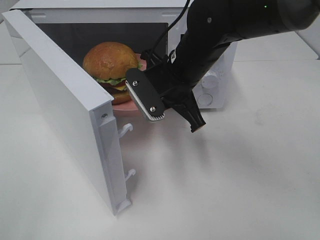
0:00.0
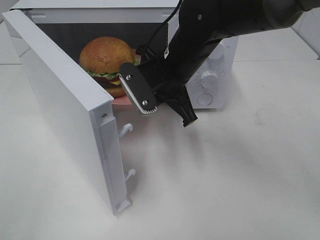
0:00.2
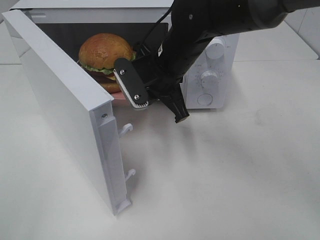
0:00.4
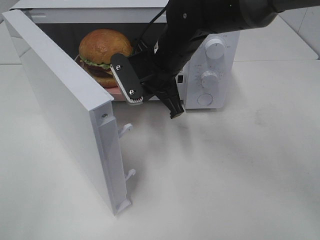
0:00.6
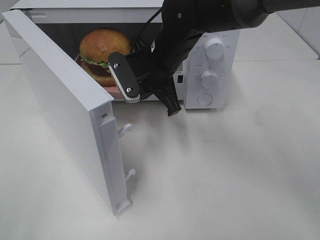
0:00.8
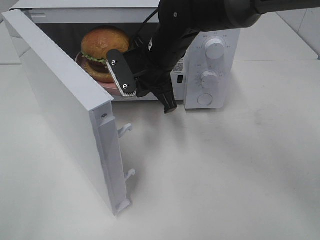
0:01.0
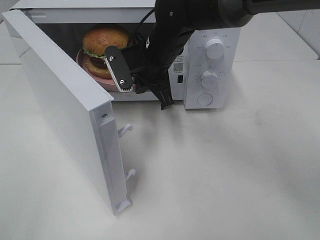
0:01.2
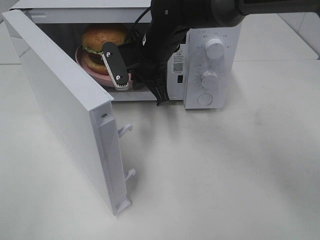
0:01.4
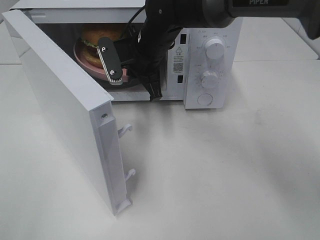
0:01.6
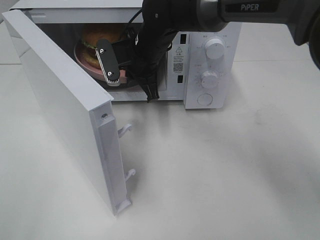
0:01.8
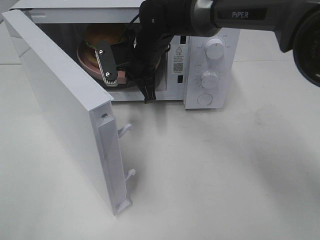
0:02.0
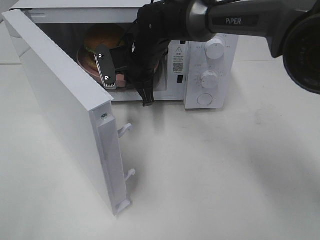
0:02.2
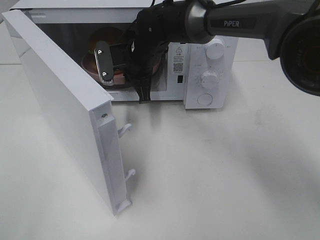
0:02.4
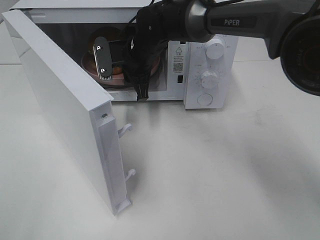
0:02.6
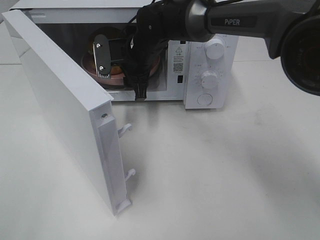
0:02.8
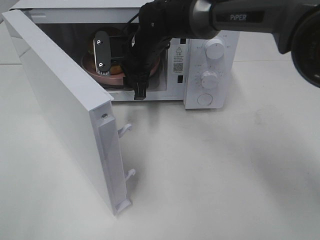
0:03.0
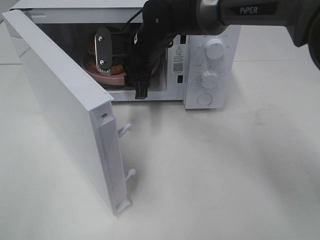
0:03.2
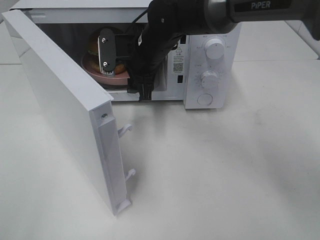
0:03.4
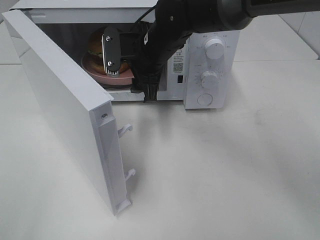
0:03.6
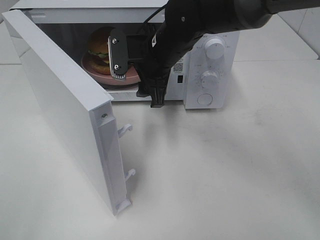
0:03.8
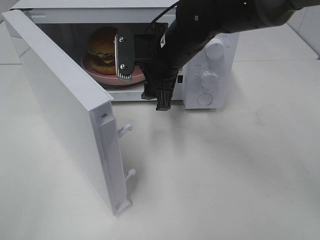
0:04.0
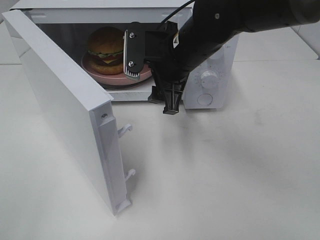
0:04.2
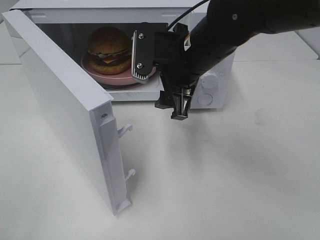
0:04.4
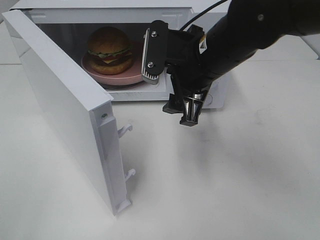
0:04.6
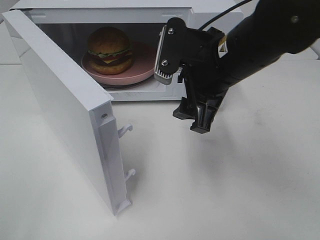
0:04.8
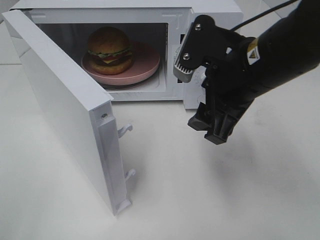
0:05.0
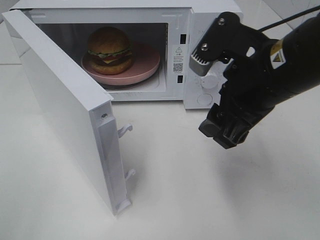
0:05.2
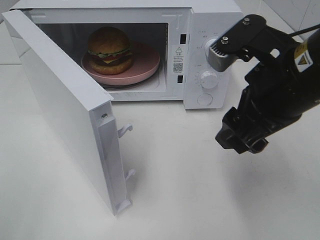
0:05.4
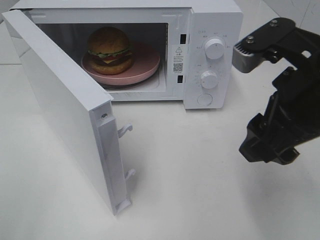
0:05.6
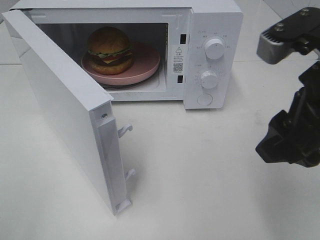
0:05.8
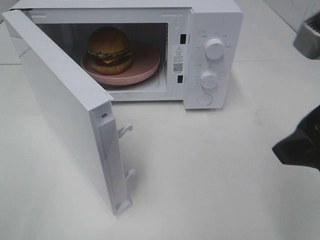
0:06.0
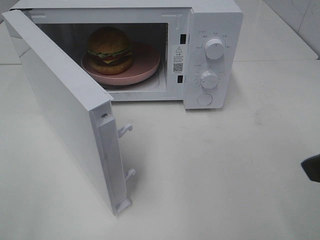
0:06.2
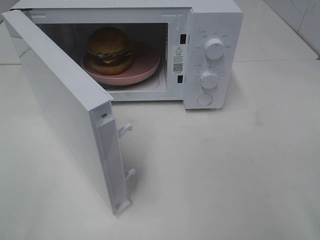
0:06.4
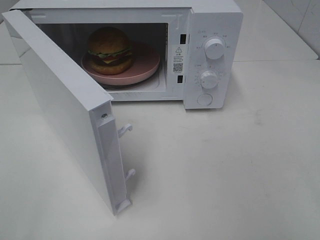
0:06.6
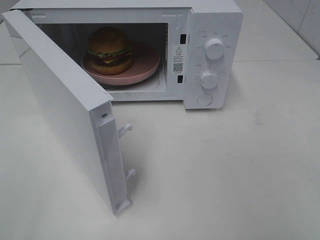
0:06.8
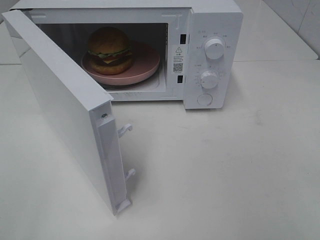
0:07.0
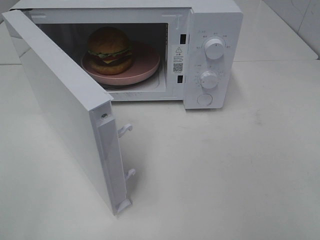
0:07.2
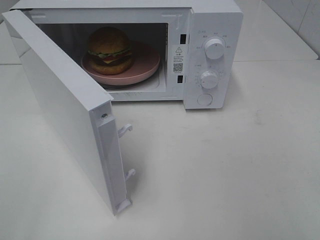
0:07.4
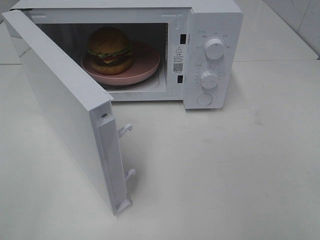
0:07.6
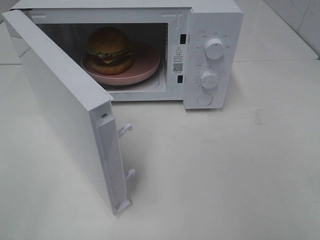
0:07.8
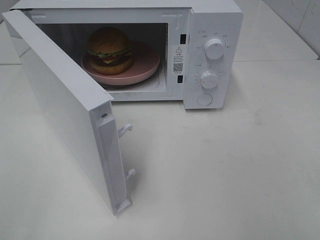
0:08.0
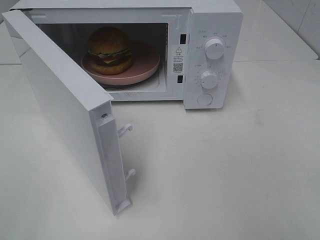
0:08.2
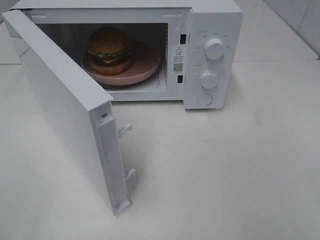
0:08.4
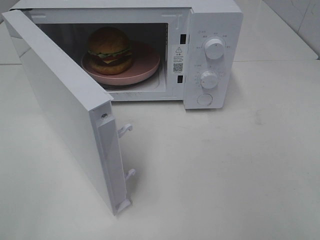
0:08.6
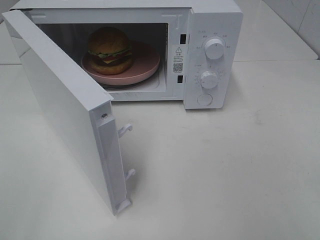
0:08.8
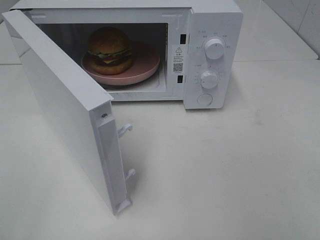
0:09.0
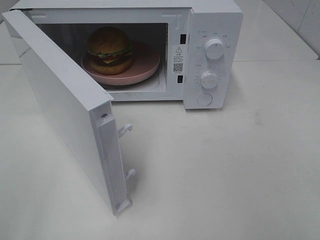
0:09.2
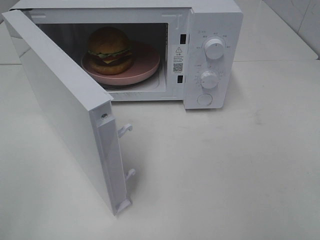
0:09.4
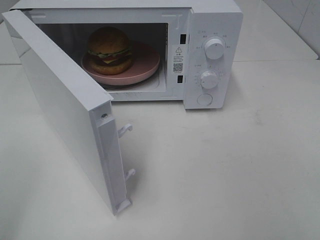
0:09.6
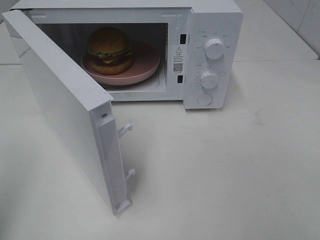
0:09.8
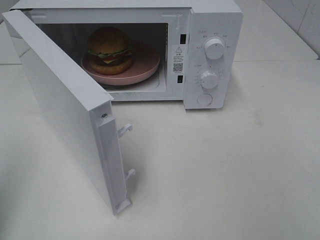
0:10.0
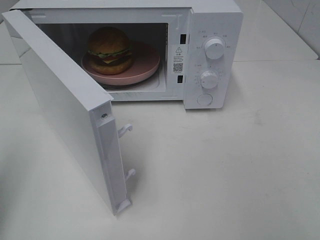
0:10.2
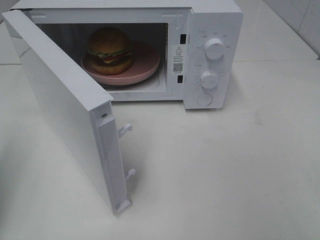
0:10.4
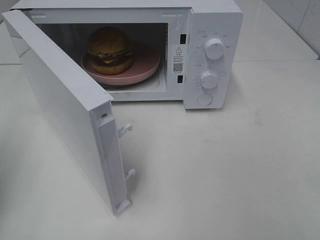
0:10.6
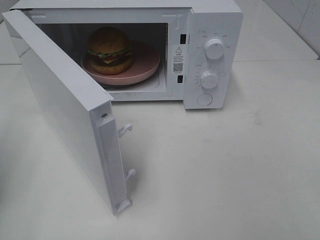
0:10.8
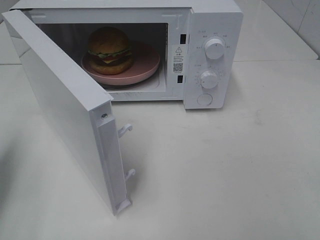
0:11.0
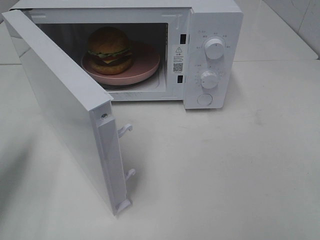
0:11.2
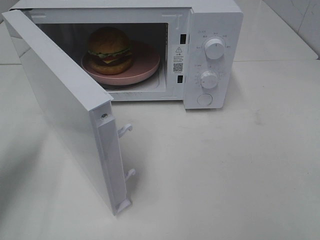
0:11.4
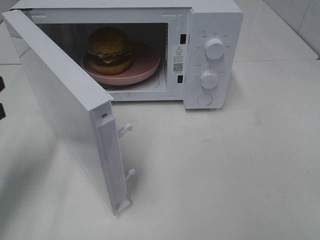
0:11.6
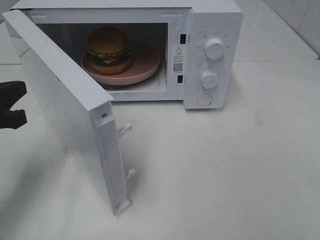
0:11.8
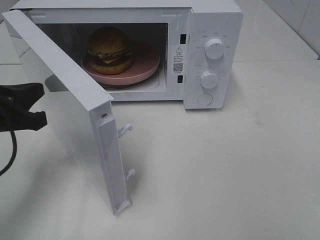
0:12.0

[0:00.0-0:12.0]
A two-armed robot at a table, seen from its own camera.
Task of the whole recording: Heat the burger.
Step, 0:00.0 to 0:02.6: Right hand: place the plate in the microwave.
0:00.0 to 0:01.6: The right gripper goes roughly 10 cm forward and to the left.
0:01.6 to 0:03.0: The right gripper opens its fingers.
0:03.0 to 0:04.4: The right gripper moves backward and to the right, approximately 15 cm.
0:04.4 to 0:06.0: The right gripper heads backward, to the right and upward, covering about 25 cm.
0:06.0 to 0:07.6: The right gripper is displaced backward and to the right by some 15 cm.
0:07.6 to 0:09.0: Both grippers stay about where they are.
0:09.0 to 0:10.4: The left gripper is displaced forward by some 15 cm, and closes its fingers.
0:10.4 to 0:12.0: The left gripper shifts about 15 cm downward, to the right and forward.

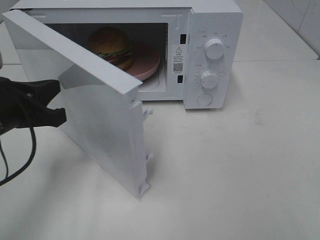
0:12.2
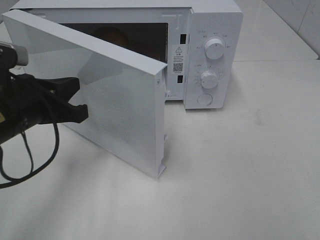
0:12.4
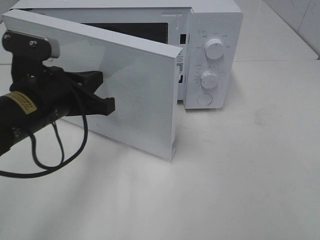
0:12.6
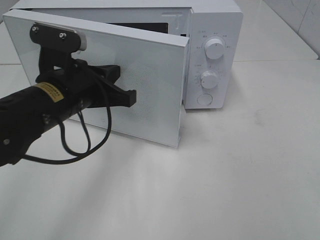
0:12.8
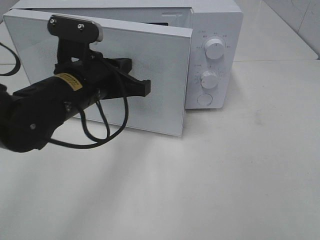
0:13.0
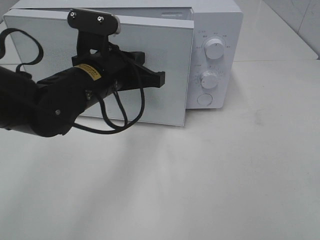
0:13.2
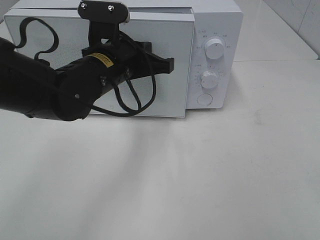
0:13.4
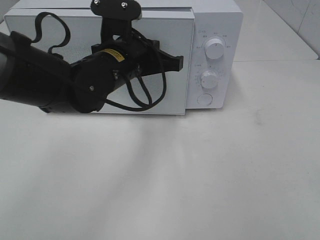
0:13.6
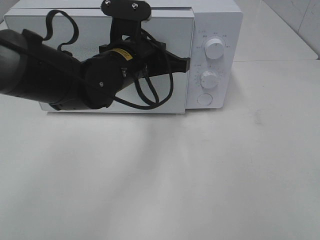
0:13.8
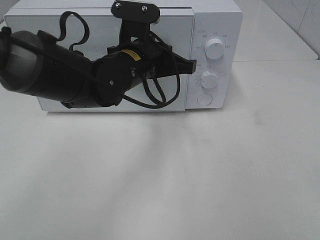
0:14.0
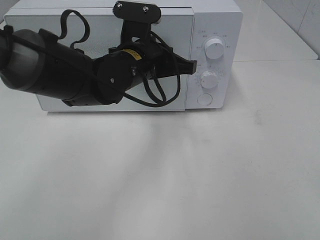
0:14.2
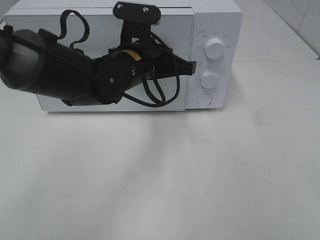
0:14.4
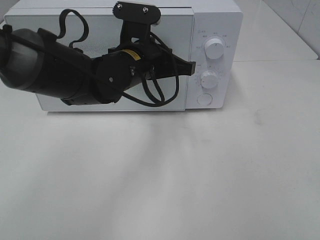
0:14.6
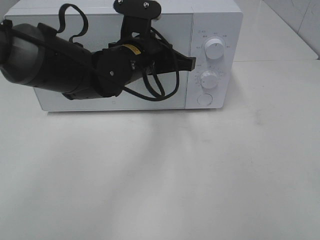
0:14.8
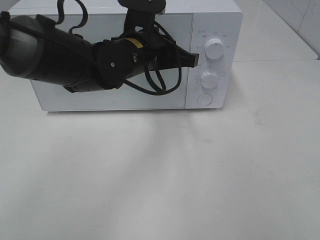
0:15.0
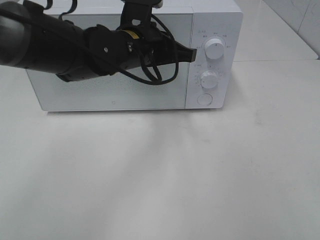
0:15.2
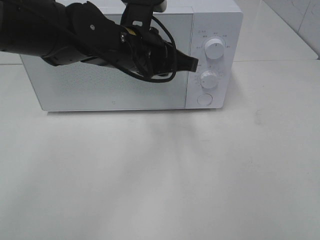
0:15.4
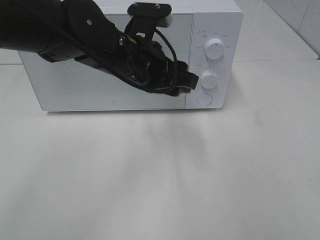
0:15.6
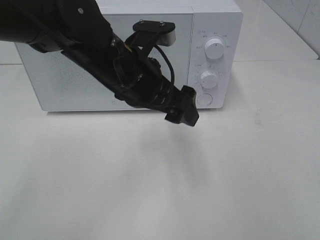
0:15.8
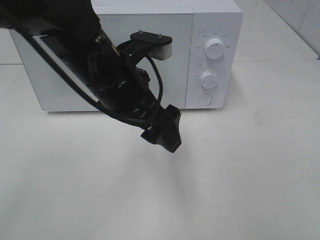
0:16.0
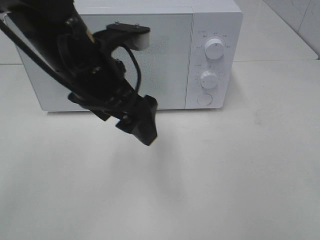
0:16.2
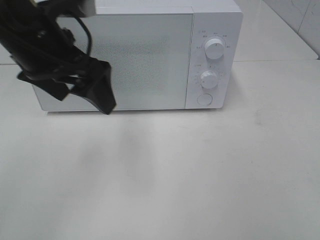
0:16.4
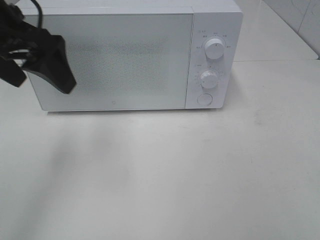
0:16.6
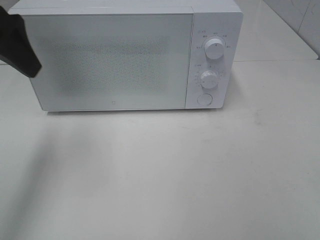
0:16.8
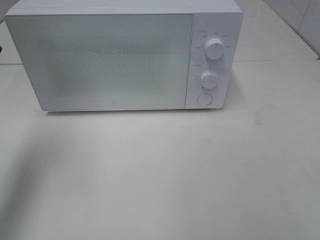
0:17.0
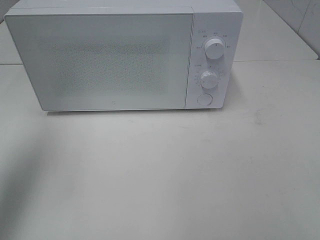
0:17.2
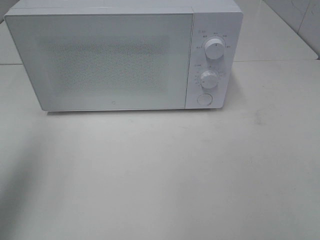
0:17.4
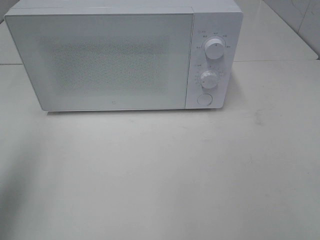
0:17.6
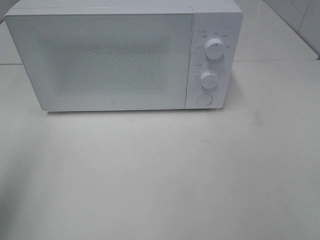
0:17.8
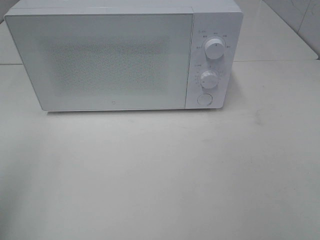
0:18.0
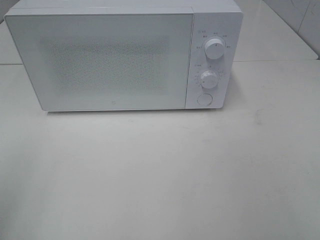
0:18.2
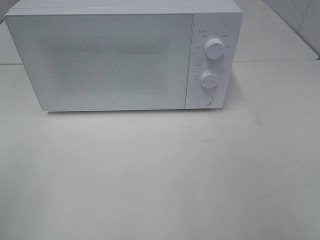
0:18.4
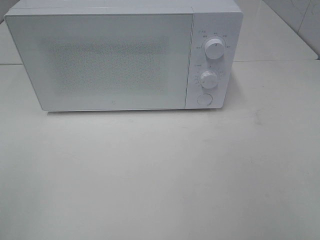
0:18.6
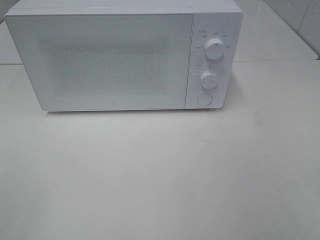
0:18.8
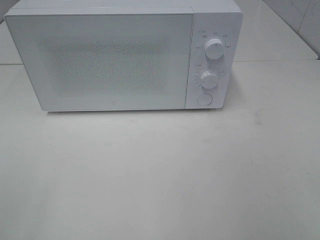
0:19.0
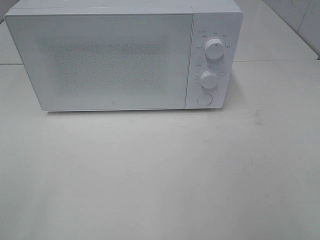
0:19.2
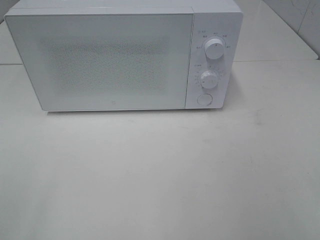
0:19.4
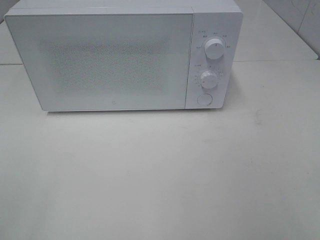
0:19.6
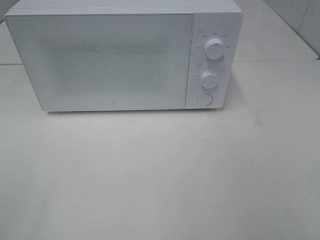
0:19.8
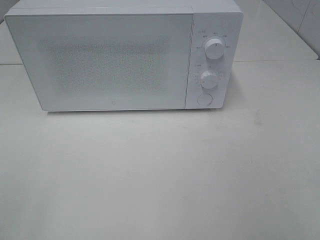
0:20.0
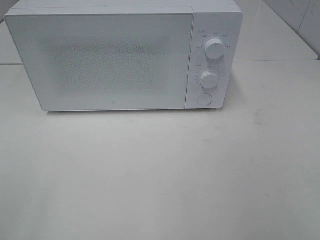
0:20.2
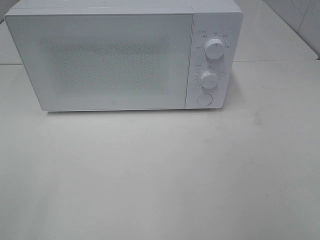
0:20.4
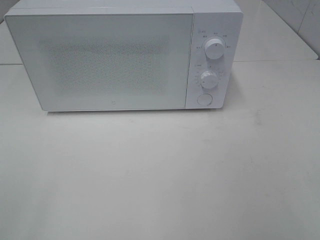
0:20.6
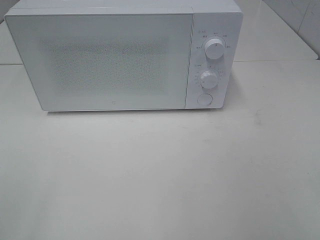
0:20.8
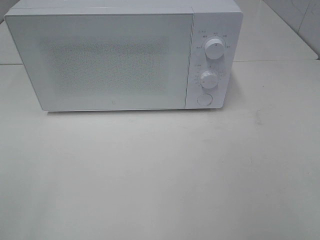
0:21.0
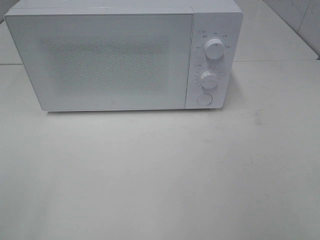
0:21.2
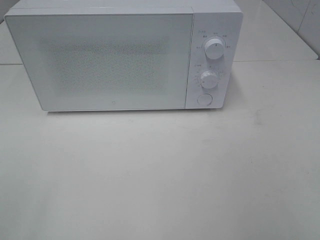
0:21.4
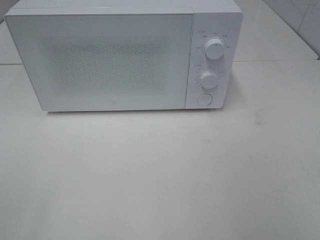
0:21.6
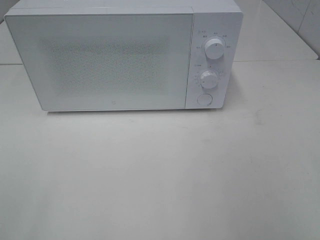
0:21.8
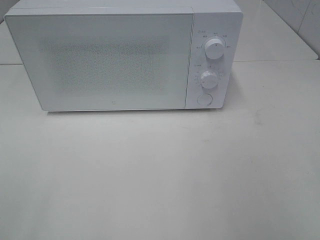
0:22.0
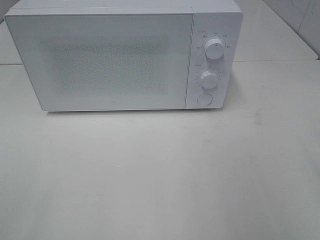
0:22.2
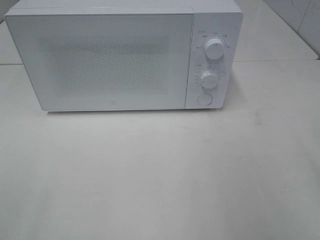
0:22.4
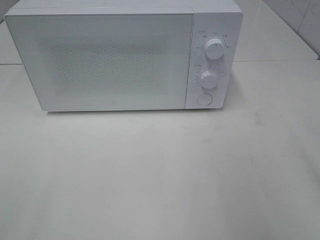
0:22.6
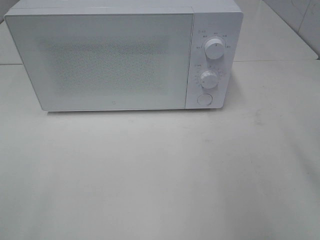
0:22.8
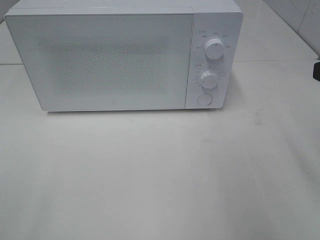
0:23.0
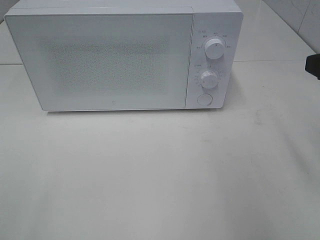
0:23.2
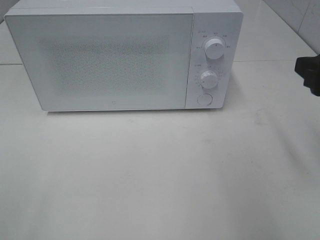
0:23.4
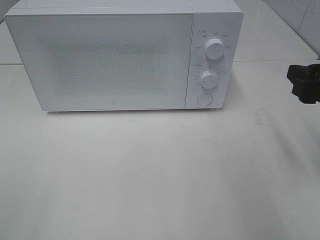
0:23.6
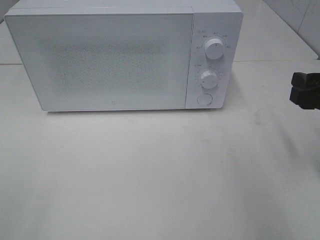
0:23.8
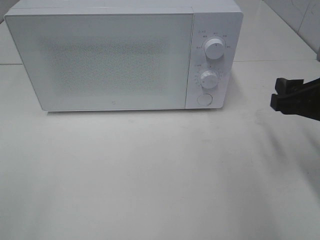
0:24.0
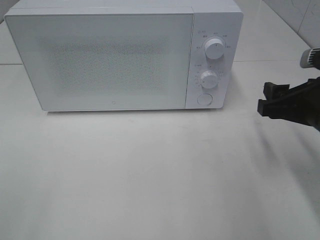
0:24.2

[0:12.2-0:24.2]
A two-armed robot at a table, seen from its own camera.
Task of the whole recording: Heat the burger.
Step, 0:12.2 to 0:15.2: Left hand: close the microwave door.
0:12.2 to 0:13.8: The left gripper goes some 20 cm to the right and forward.
0:13.8 to 0:15.2: There are only small adjustments of the grippers.
0:15.2 to 0:16.6: The left gripper shifts about 20 cm to the left, upward and backward, and opens its fingers.
0:16.6 to 0:18.2: The left gripper shifts approximately 25 cm backward and to the left.
0:19.8 to 0:21.2: Both grippers stay about where they are.
0:22.6 to 0:24.2: The right gripper heads downward and forward, covering about 15 cm.
